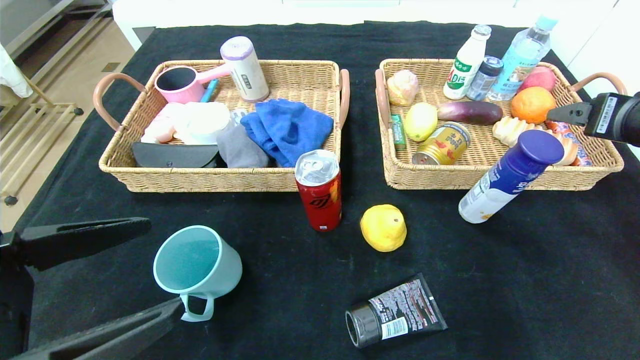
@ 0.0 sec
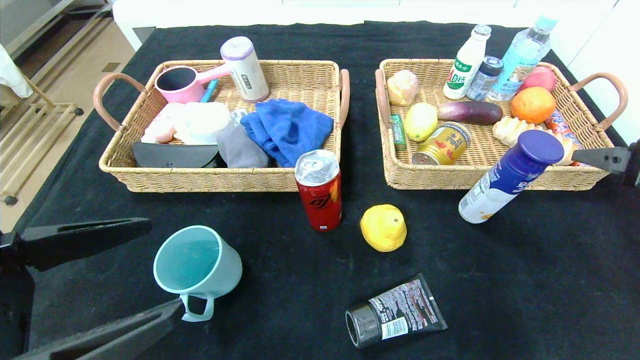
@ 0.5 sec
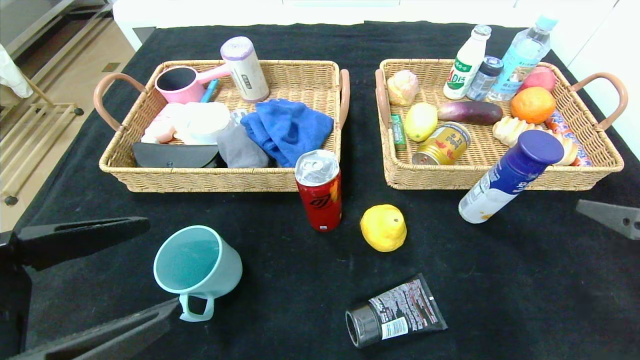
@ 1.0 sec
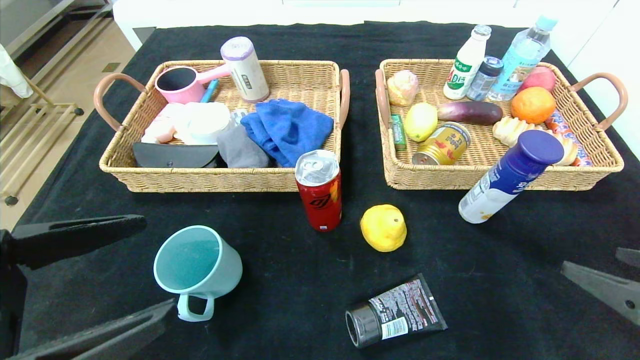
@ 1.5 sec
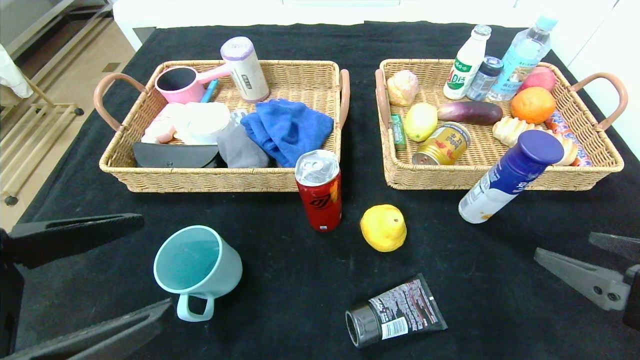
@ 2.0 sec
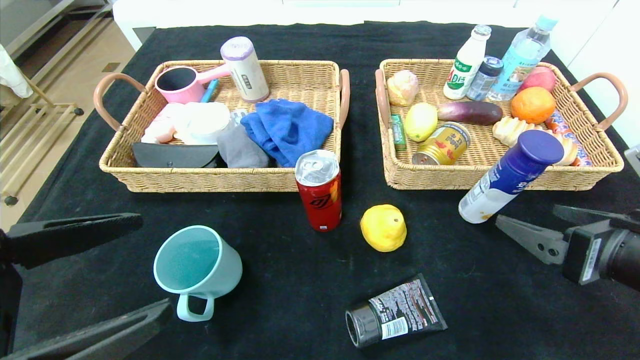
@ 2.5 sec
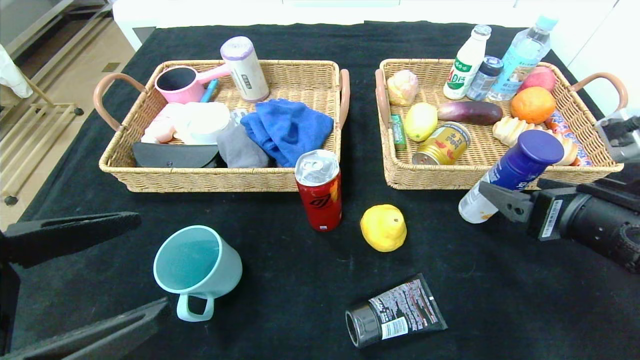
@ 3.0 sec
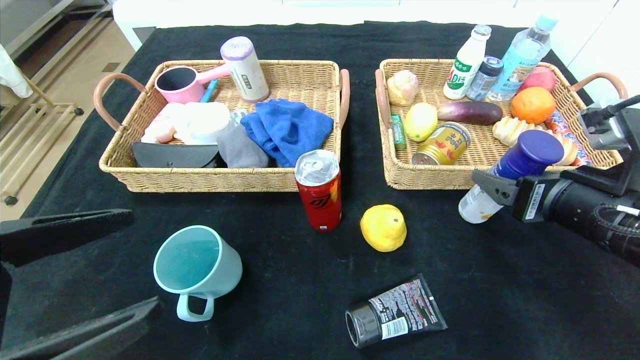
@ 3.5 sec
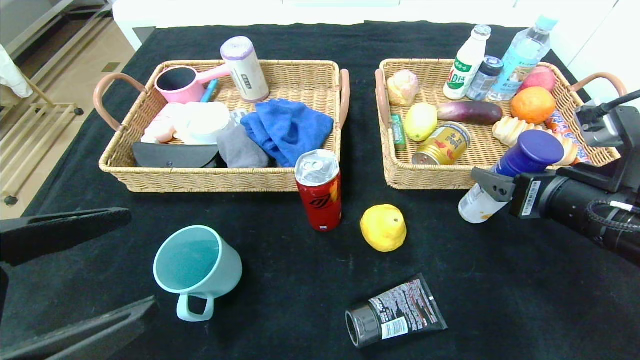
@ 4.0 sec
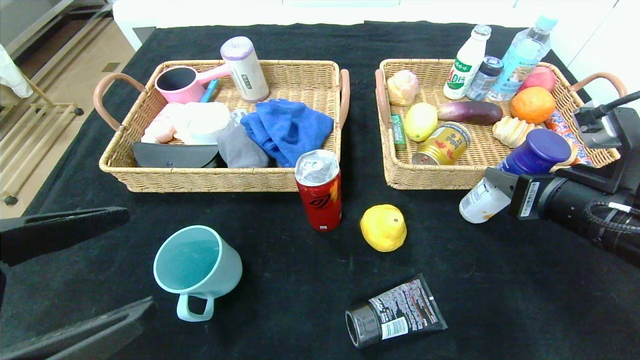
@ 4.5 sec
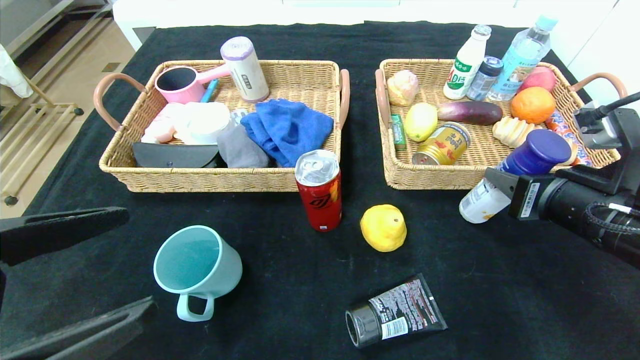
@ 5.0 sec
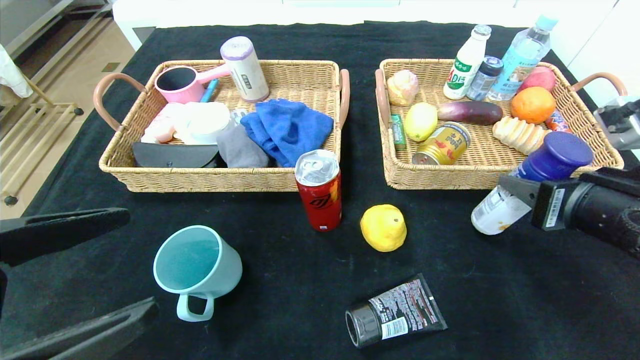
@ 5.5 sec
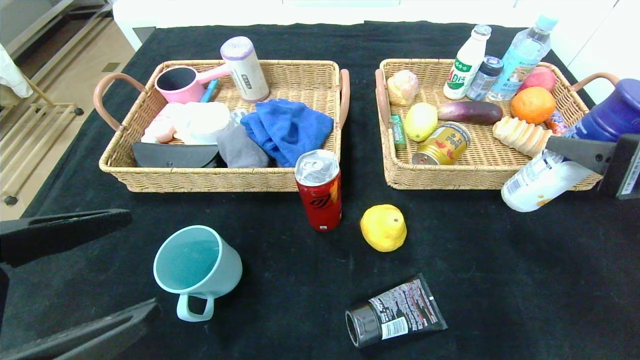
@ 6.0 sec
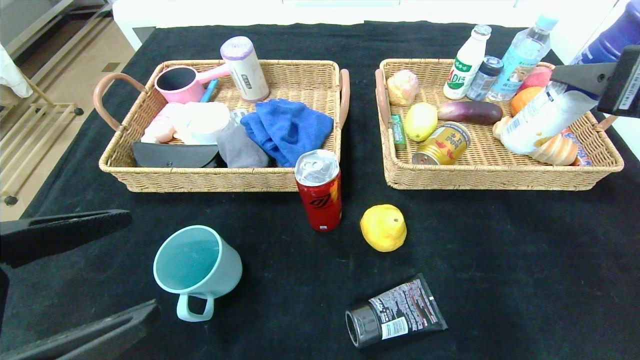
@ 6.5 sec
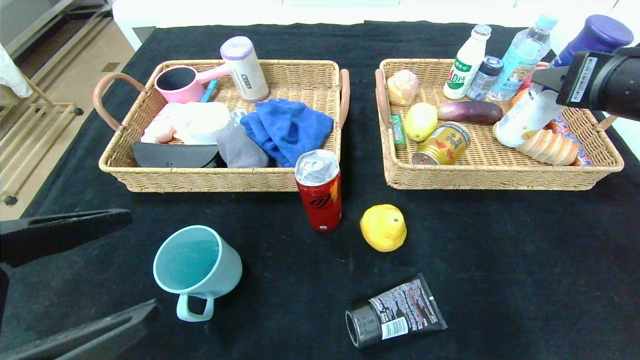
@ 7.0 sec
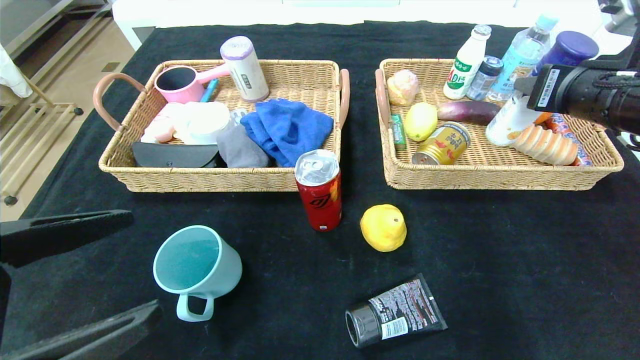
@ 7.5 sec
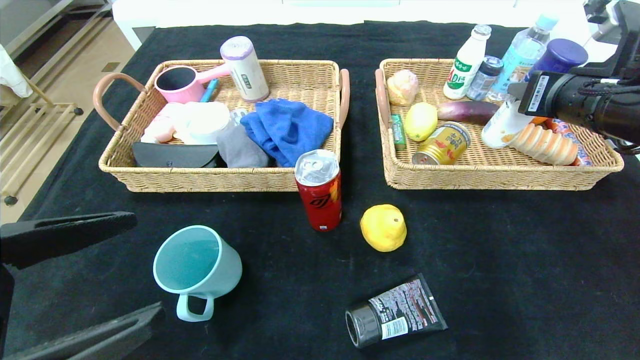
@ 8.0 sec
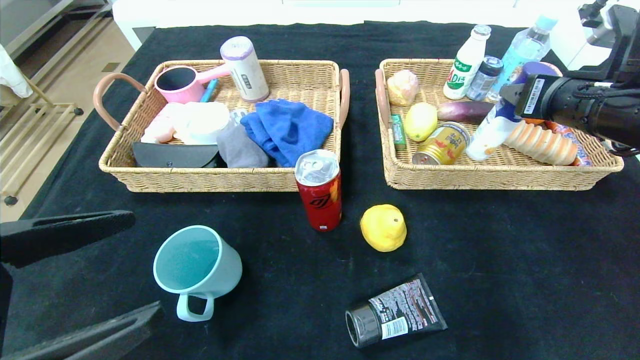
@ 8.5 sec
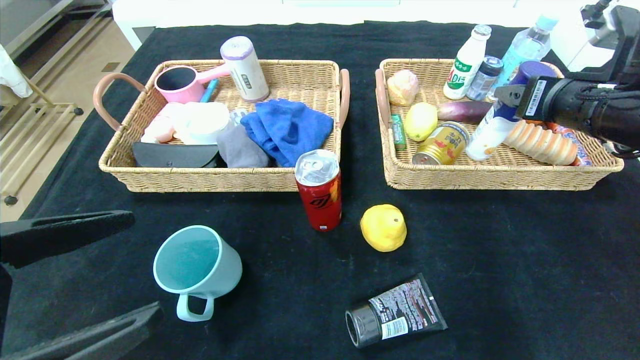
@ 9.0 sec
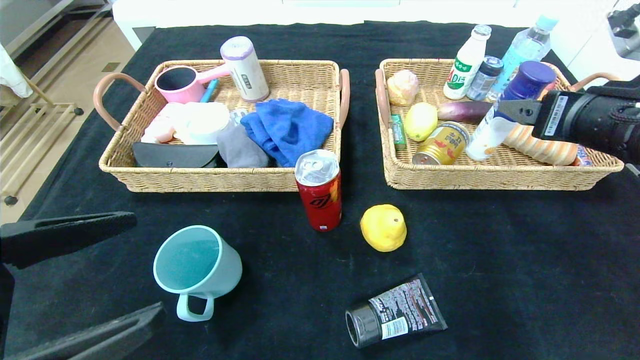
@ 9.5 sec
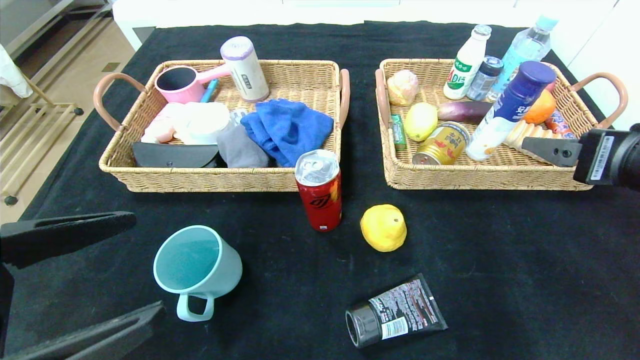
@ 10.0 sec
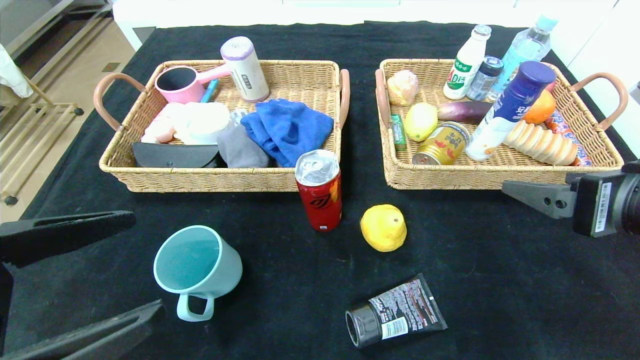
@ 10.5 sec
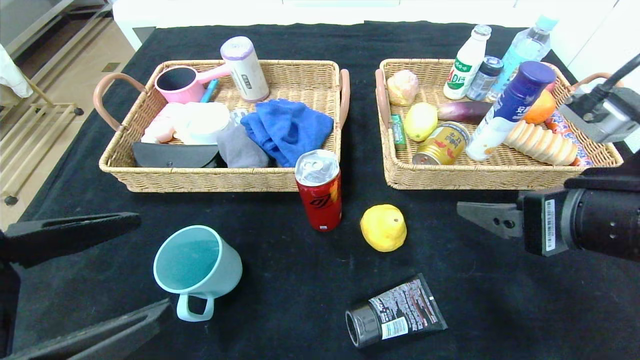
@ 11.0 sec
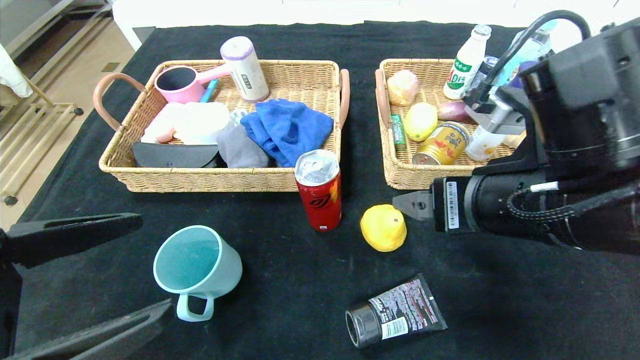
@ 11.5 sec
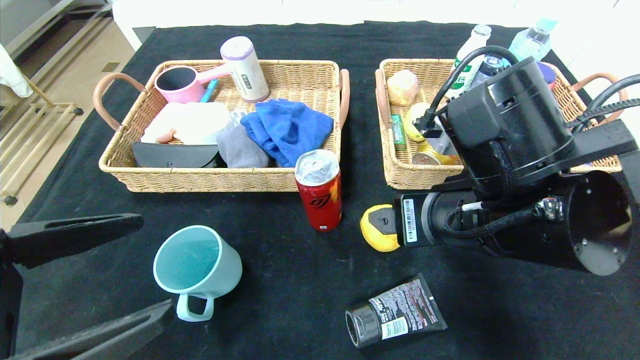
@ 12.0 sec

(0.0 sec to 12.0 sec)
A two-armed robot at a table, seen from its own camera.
Step, 0.0 sec - 9.0 sec: Grasp the yogurt and put it in the right basket.
0.0 sec - 2.0 sec: The right gripper shifts about 15 cm backward and downward.
2.0 sec - 4.0 sec: The right gripper goes about 10 cm forward.
4.0 sec - 6.0 sec: The right gripper is displaced upward and backward by about 10 cm, and closes up.
6.0 sec - 8.0 sec: The right gripper moves forward, approximately 15 cm.
8.0 sec - 10.0 sec: The right gripper travels backward by some 10 cm, and opens up.
10.0 sec - 12.0 sec: The right gripper heads to the left, covering about 15 cm.

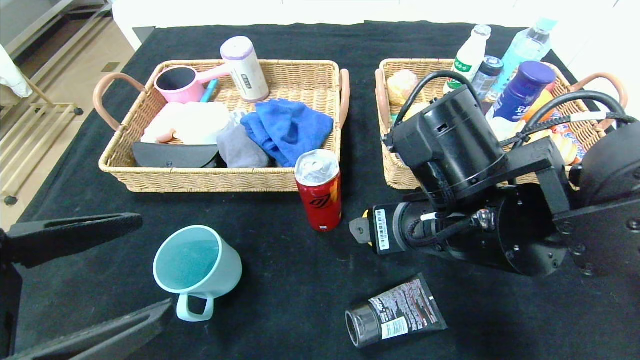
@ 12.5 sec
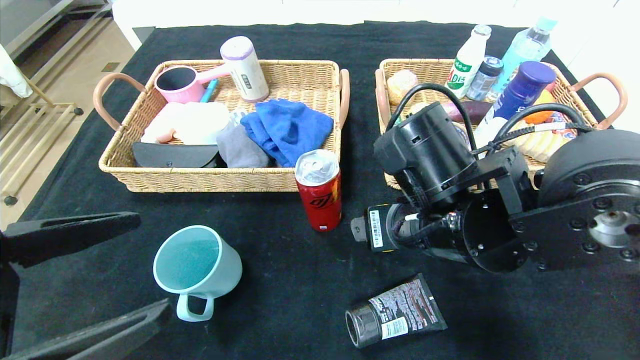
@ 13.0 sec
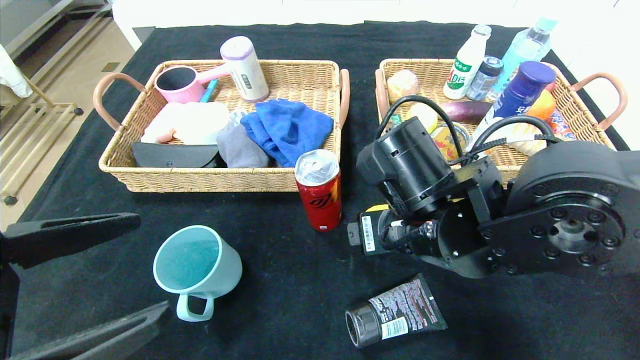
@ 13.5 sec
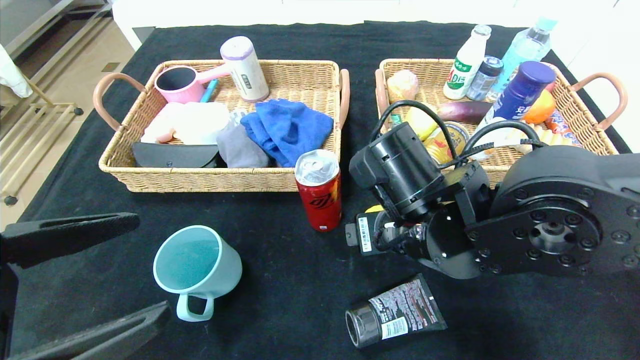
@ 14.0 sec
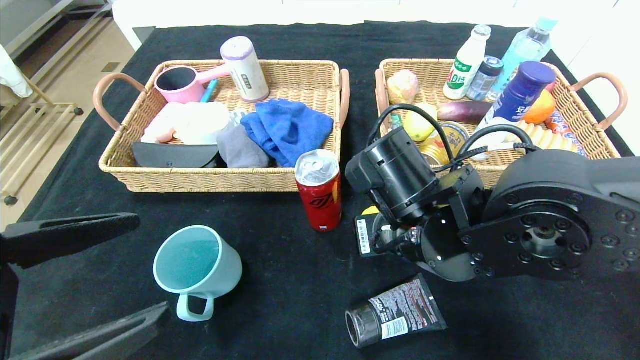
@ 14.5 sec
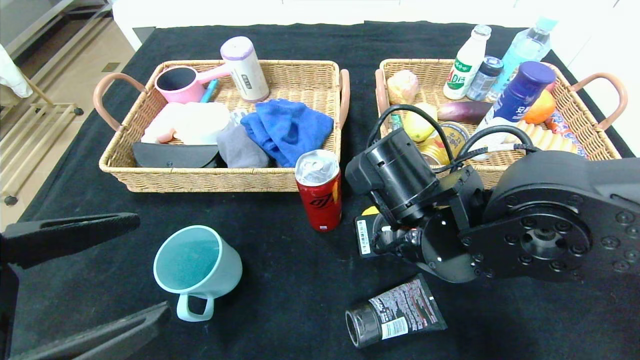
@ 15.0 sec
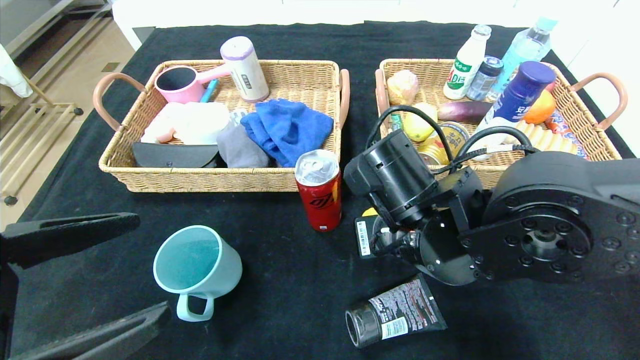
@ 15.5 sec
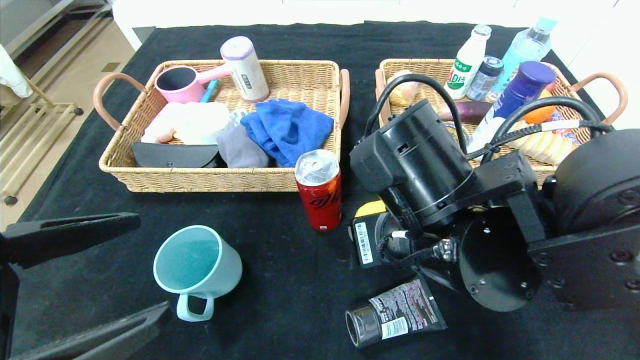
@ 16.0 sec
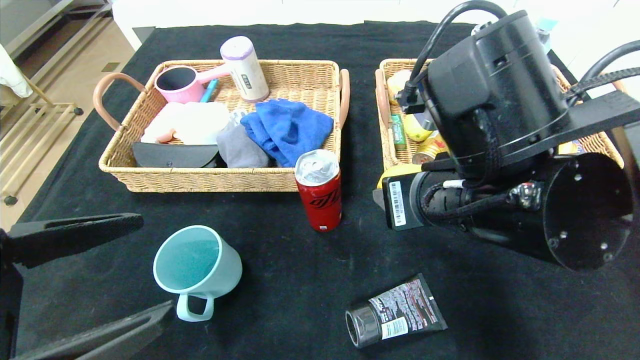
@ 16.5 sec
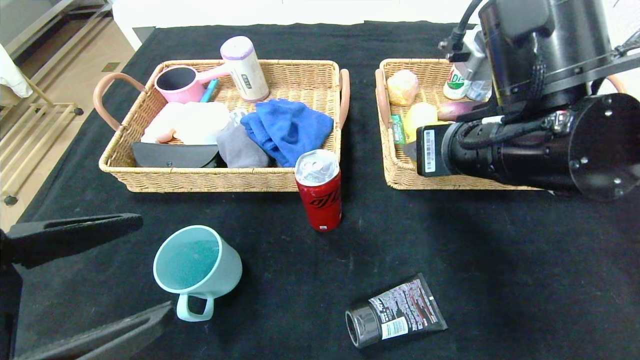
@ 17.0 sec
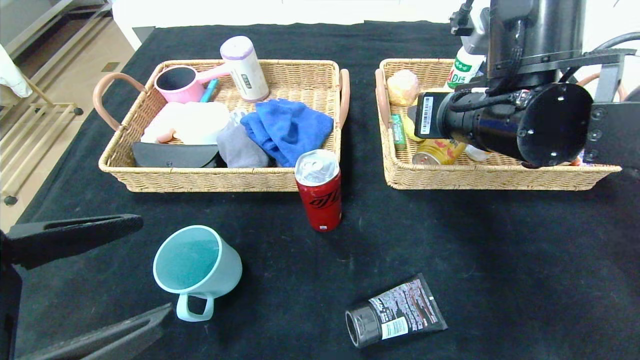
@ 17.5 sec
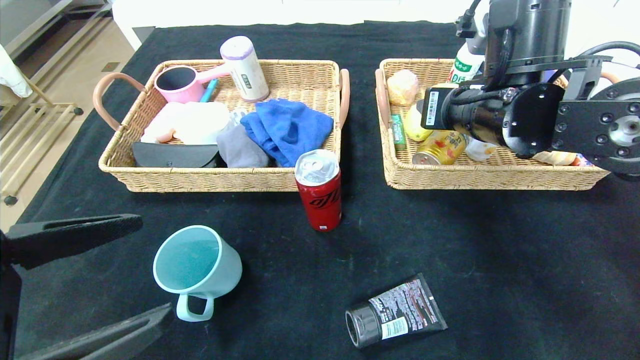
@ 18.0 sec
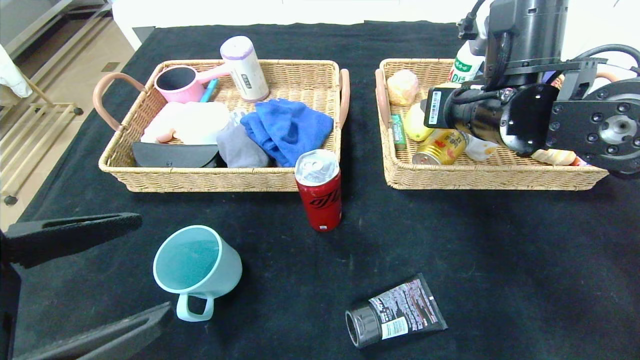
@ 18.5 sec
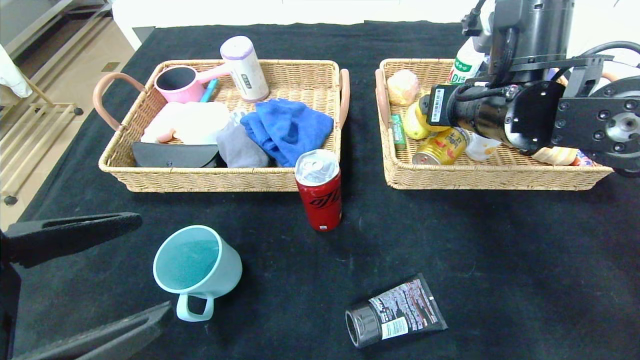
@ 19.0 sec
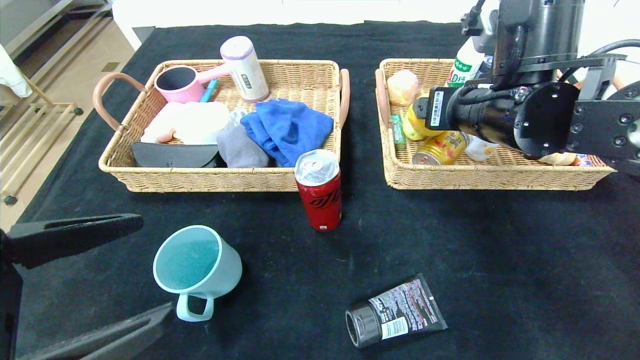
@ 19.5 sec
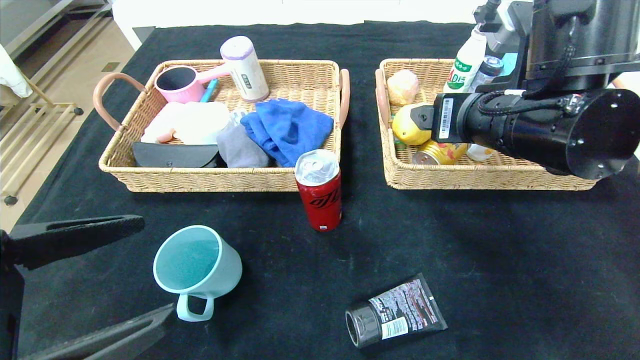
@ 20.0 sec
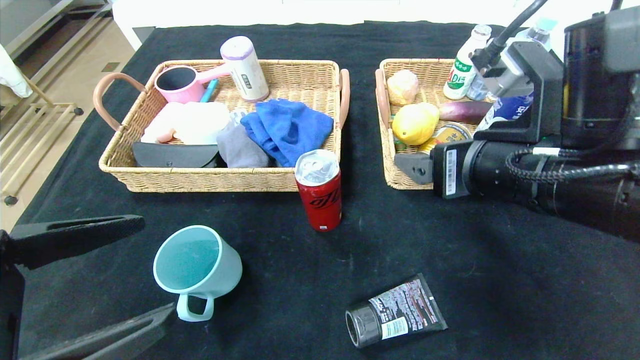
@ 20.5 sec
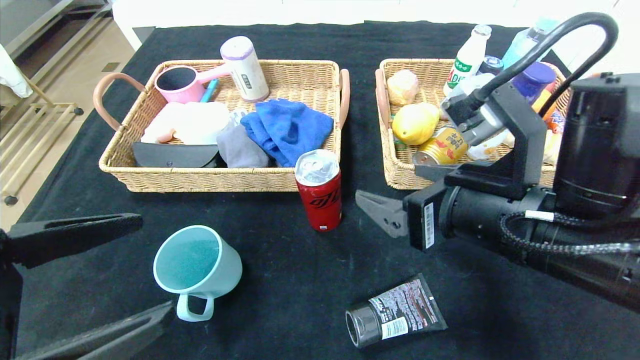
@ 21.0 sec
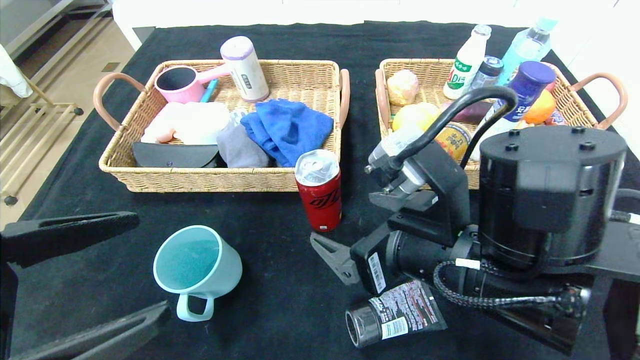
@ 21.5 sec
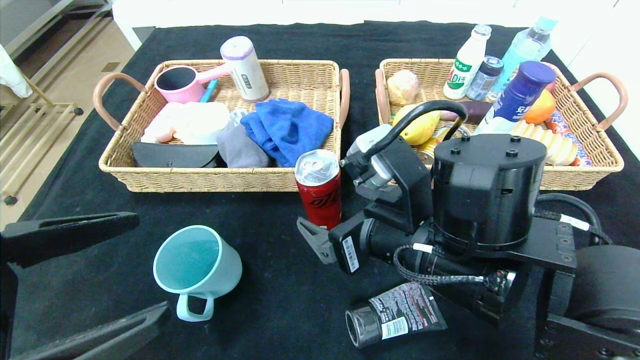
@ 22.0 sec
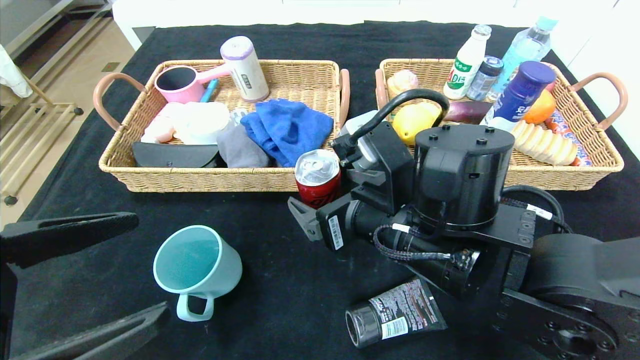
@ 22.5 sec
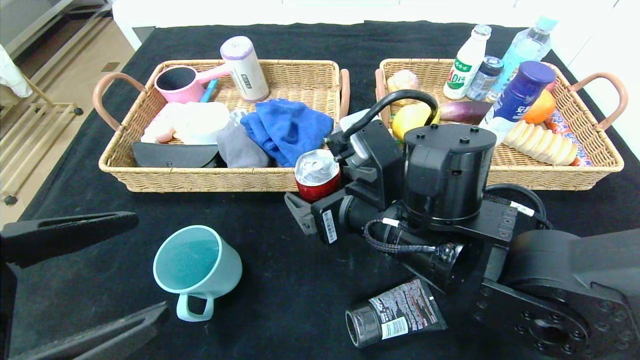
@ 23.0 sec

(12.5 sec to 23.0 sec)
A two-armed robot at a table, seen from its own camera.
Step, 12.5 sec - 19.5 sec: Grasp the pear and put it in the right basket.
12.5 sec - 14.5 sec: The right gripper closes.
14.5 sec - 16.5 sec: The right gripper shifts some 5 cm upward.
16.5 sec - 19.0 sec: The right gripper shifts some 15 cm forward and to the right.
19.0 sec - 21.0 sec: The right gripper moves backward and downward, roughly 15 cm.
21.0 sec - 23.0 sec: The right gripper goes approximately 10 cm to the left.
